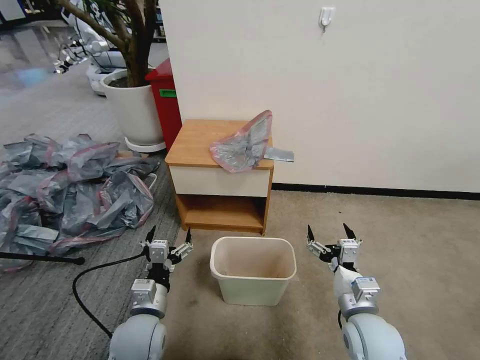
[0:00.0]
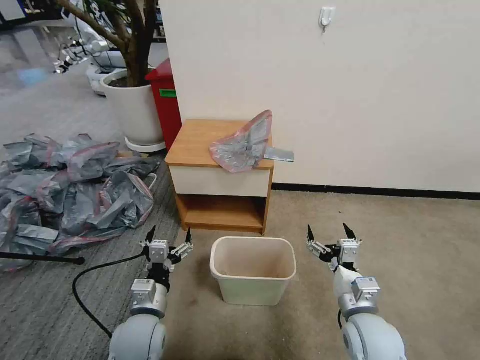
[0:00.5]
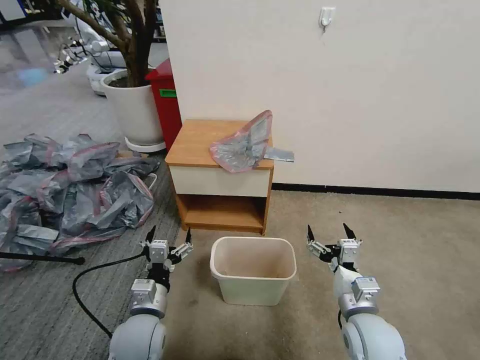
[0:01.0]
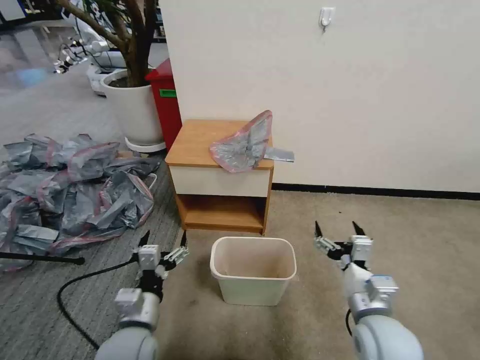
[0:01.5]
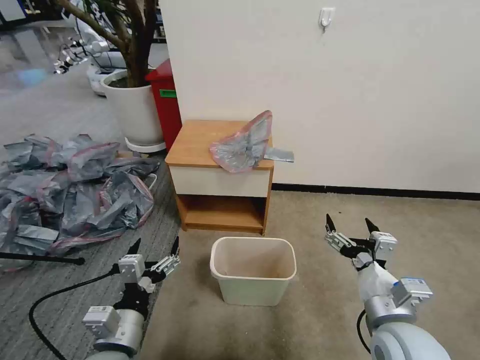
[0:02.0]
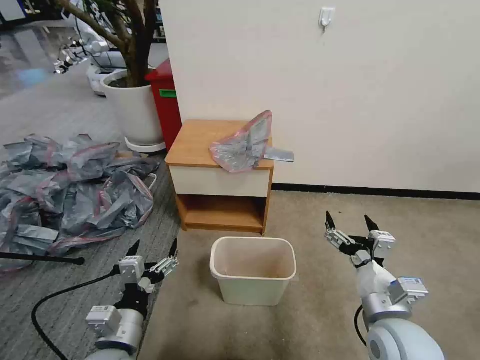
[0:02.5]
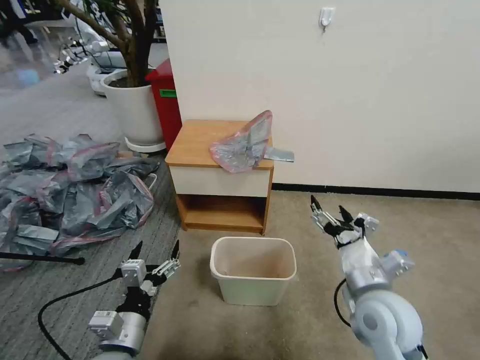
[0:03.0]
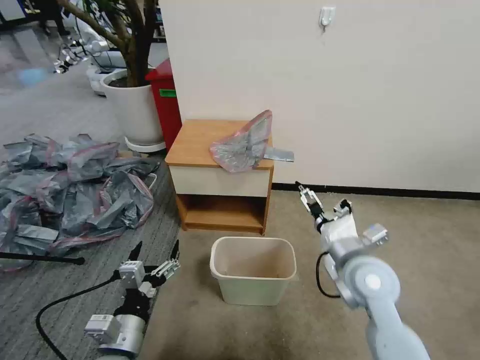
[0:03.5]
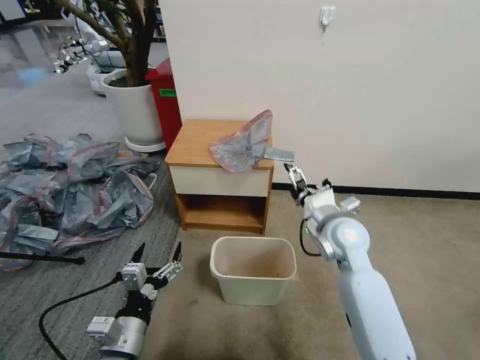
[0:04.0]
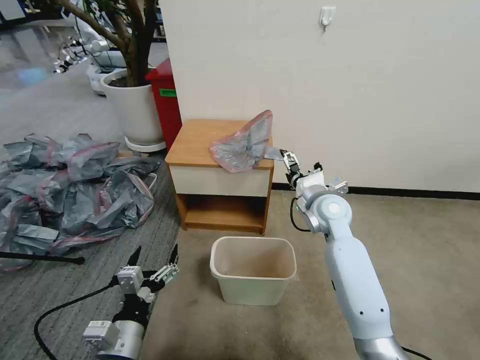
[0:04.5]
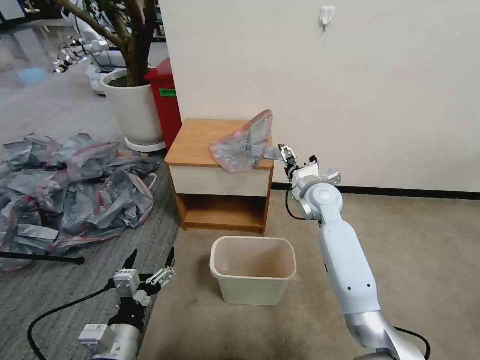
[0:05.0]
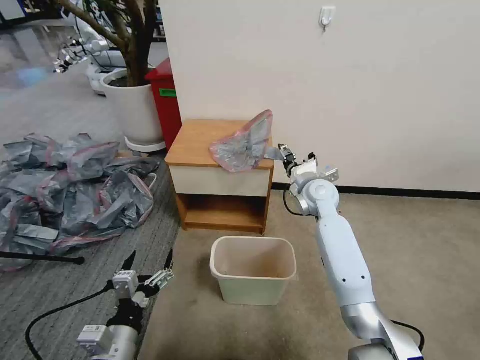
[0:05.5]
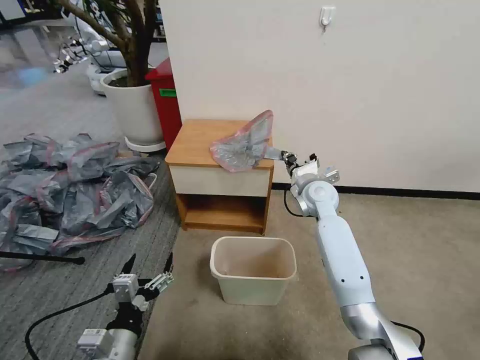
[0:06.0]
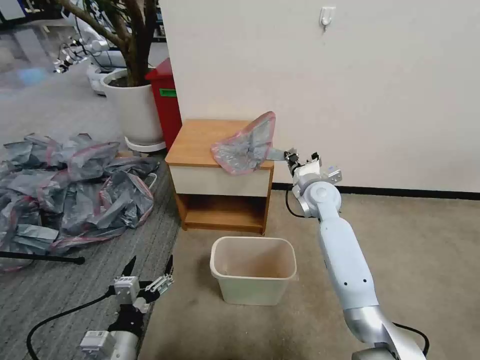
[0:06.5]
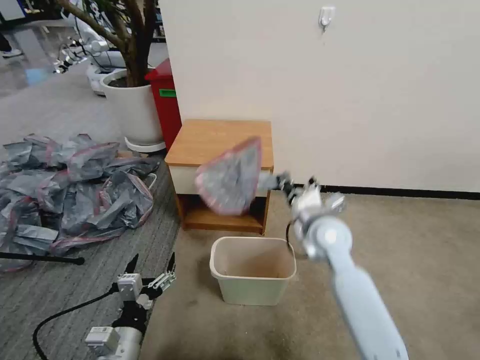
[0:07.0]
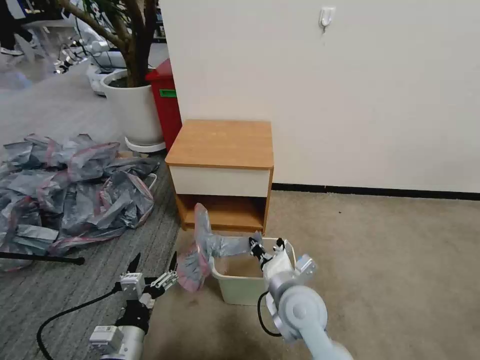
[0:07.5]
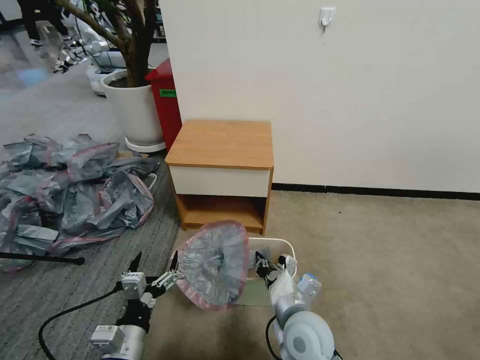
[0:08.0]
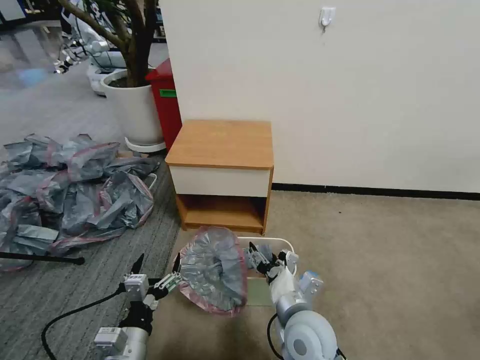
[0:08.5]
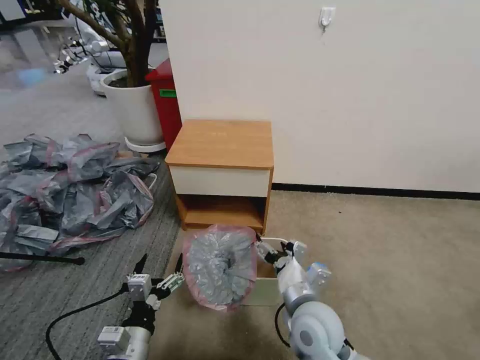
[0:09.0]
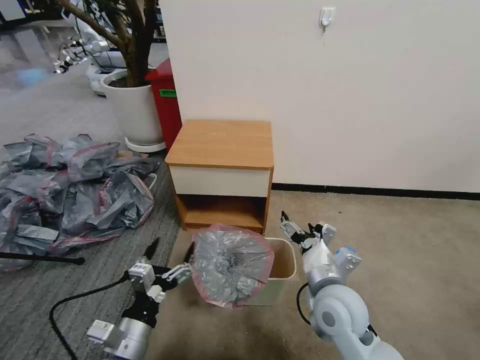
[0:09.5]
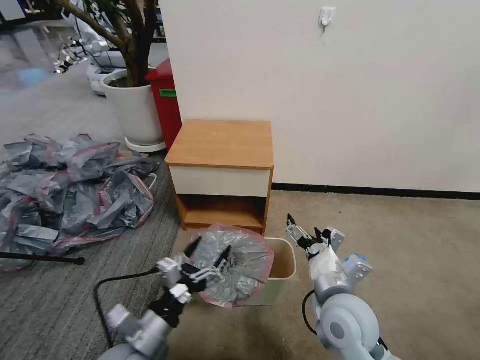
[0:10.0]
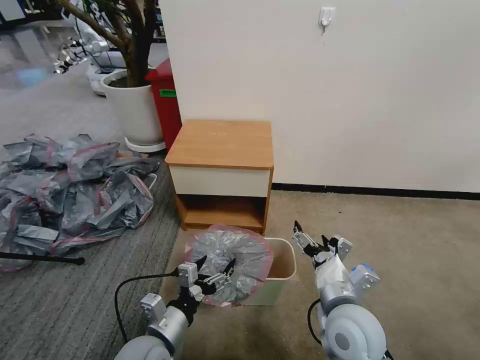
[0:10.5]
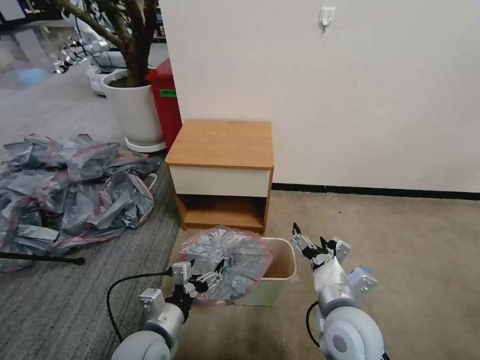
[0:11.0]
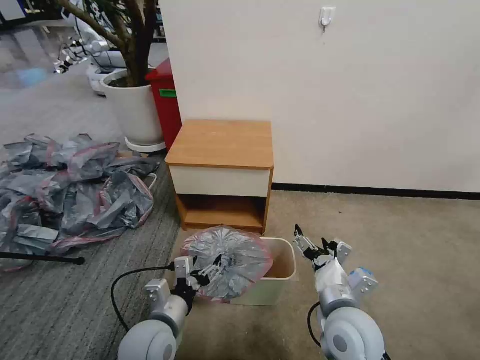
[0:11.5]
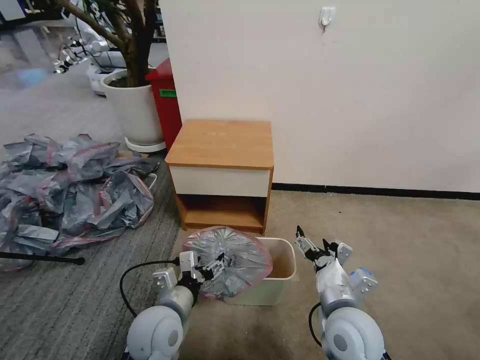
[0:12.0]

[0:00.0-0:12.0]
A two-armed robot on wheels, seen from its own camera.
Task of the whole recording: Pick up the garbage bag from the table and place it over the trash can.
2.0 to 4.0 s: The right gripper is displaced forward by approximately 20 cm.
4.0 to 6.0 s: The right gripper goes about 15 cm forward, and closes up.
6.0 to 8.0 s: The right gripper moves backward, roughly 30 cm.
8.0 to 10.0 s: The right gripper is displaced to the right and upward by some 10 cm, and opens up.
10.0 to 12.0 s: The left gripper is displaced forward by approximately 5 cm.

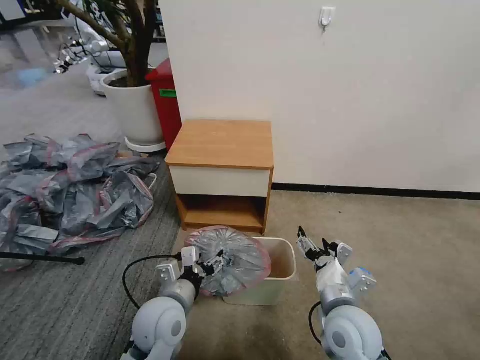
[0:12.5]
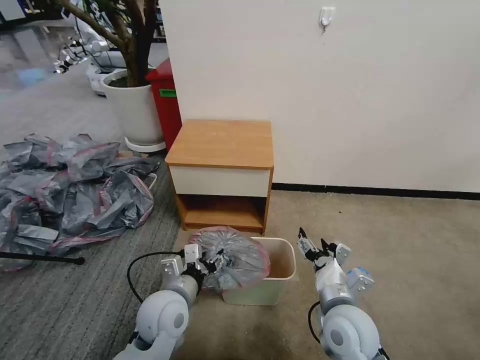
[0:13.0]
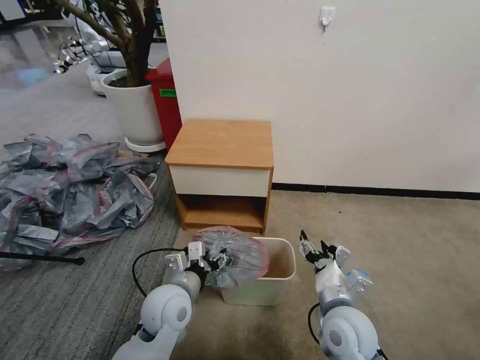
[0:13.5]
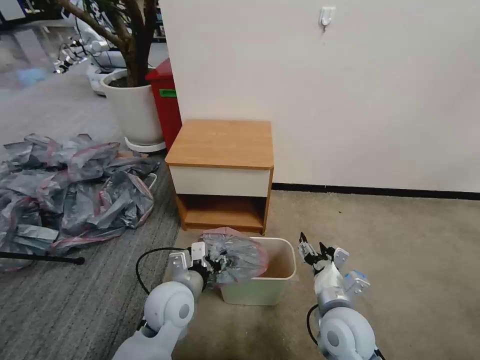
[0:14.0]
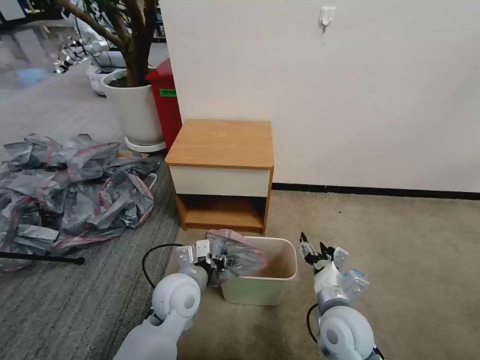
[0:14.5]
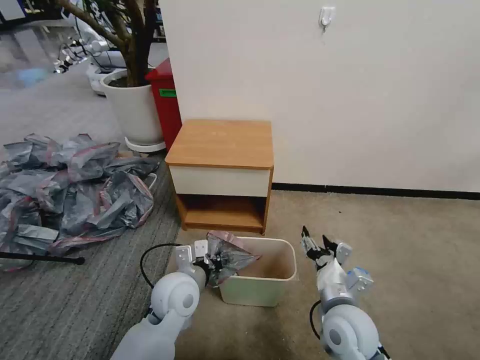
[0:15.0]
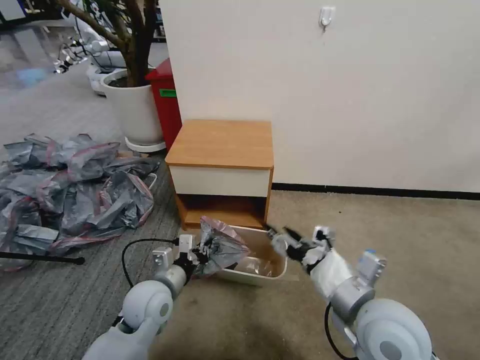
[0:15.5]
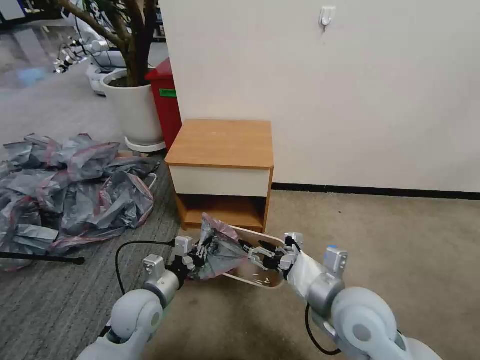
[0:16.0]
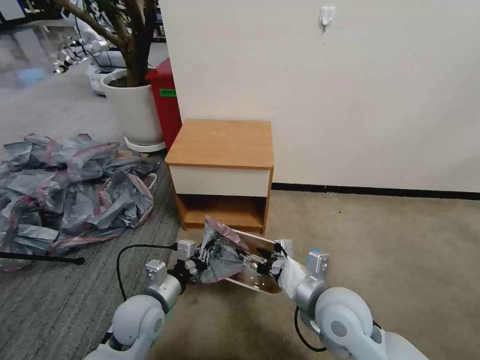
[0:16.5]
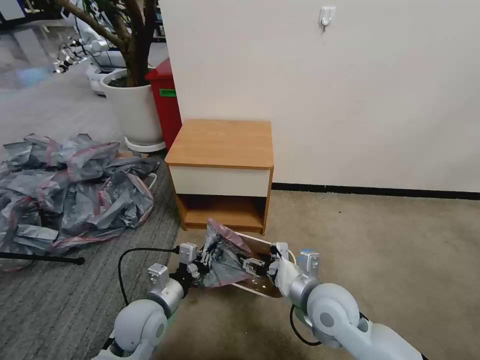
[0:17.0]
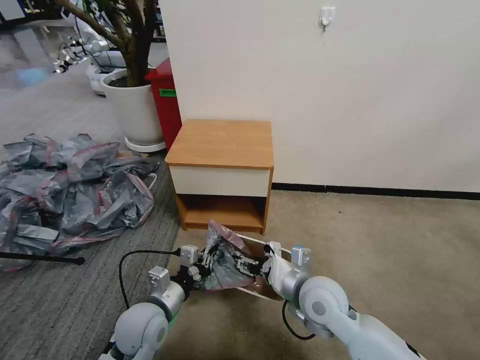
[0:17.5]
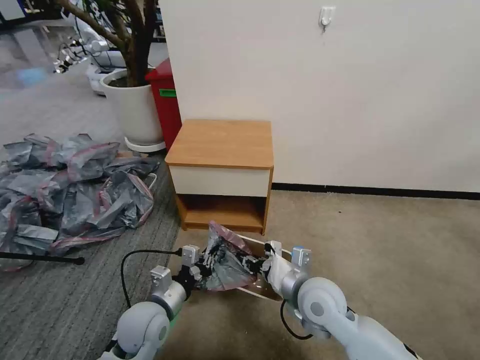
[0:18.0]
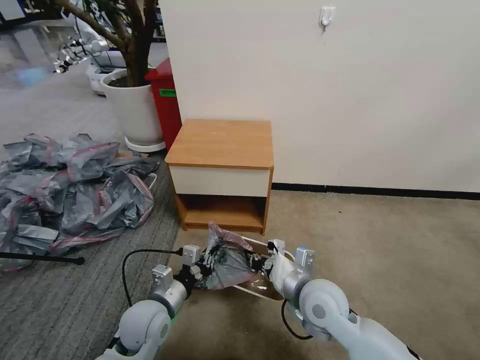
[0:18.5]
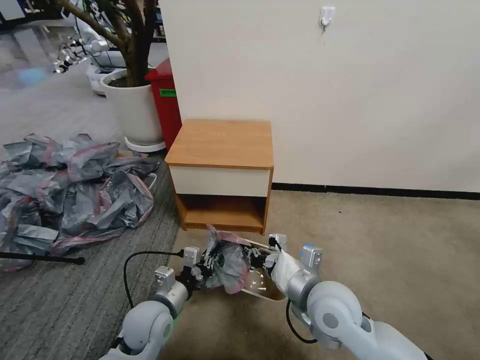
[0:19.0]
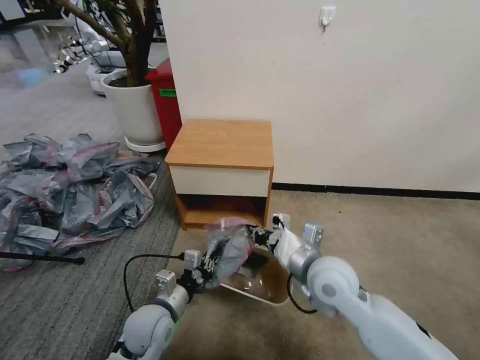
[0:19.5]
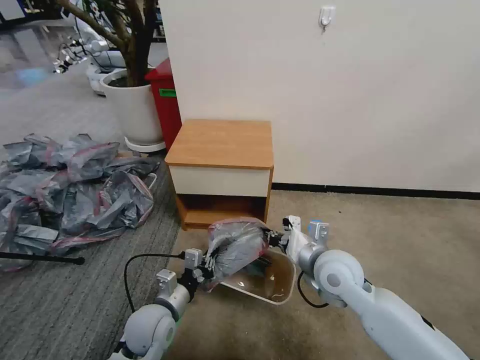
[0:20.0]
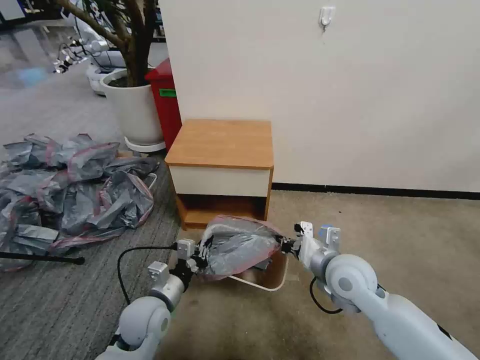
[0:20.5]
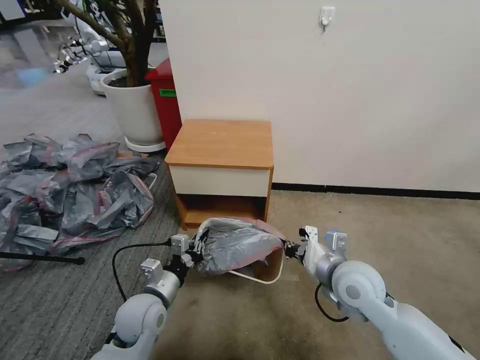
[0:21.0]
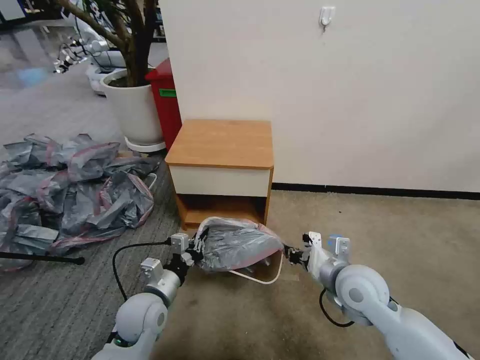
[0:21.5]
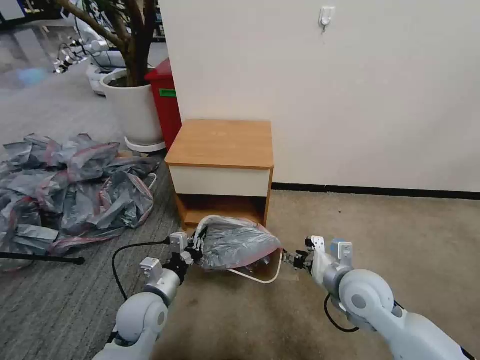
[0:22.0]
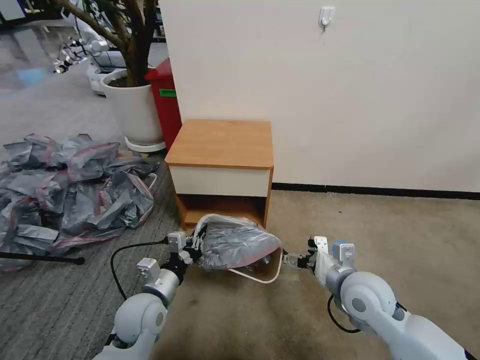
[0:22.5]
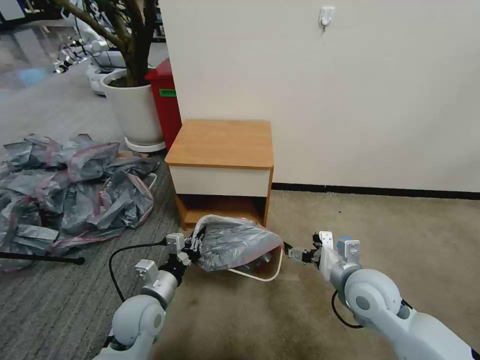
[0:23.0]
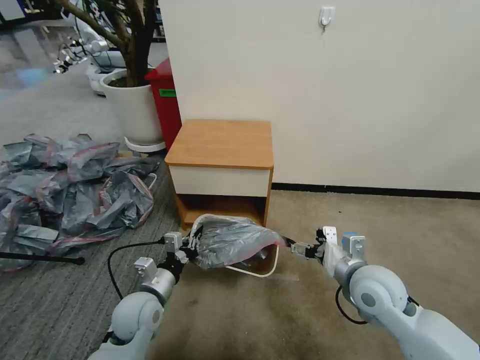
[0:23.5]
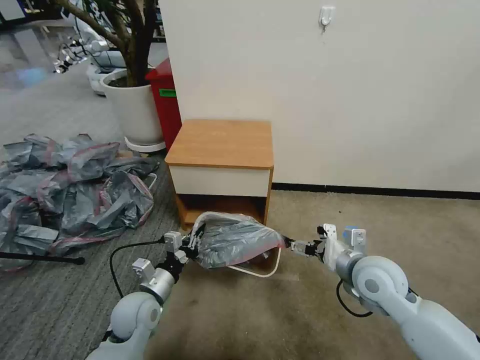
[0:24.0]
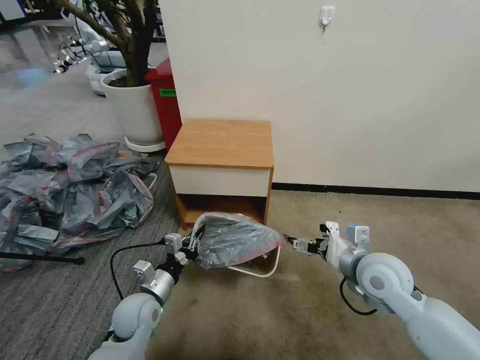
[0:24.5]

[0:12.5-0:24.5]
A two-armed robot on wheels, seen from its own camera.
Task of the whole recording: Pick up the garbage bag from the table and place it over the trash can.
12.5 to 14.5 s: The left gripper moves approximately 5 cm, and closes its fingers.
14.5 to 16.5 s: The right gripper is displaced upward by some 5 cm, while the left gripper shifts some 10 cm to the left.
16.5 to 18.5 s: The right gripper changes place by about 5 cm, and closes up.
18.5 to 20.5 s: The right gripper goes approximately 5 cm to the right.
20.5 to 22.5 s: The right gripper opens.
22.5 to 24.5 s: The right gripper changes place by some 5 cm.

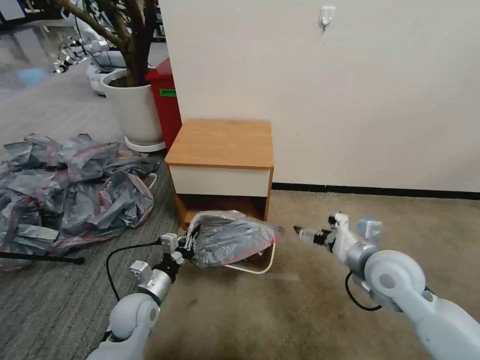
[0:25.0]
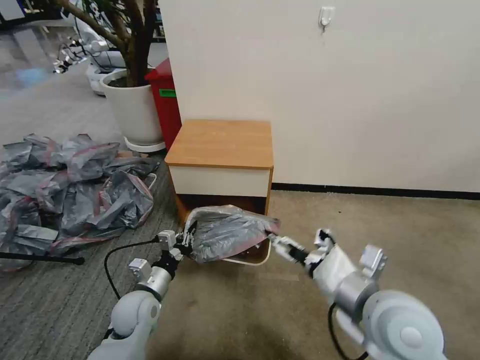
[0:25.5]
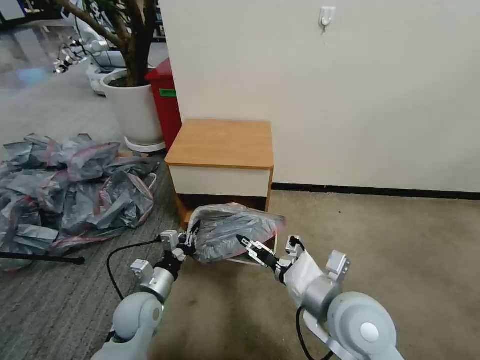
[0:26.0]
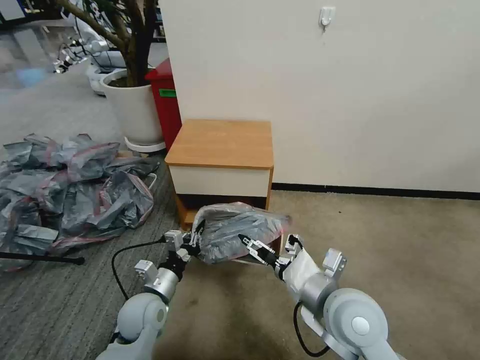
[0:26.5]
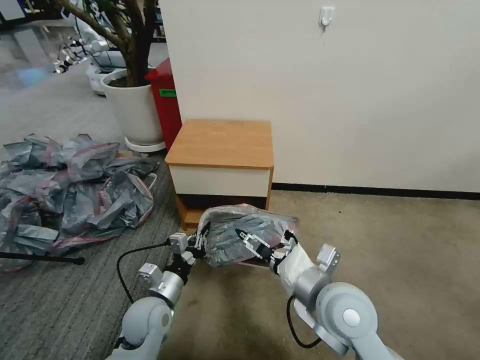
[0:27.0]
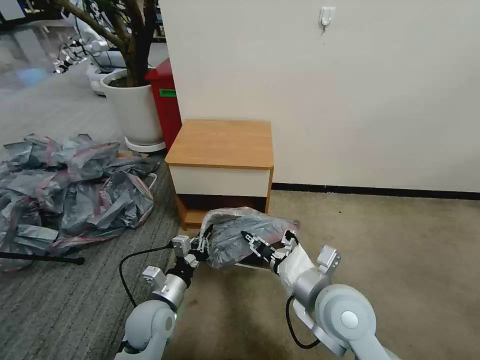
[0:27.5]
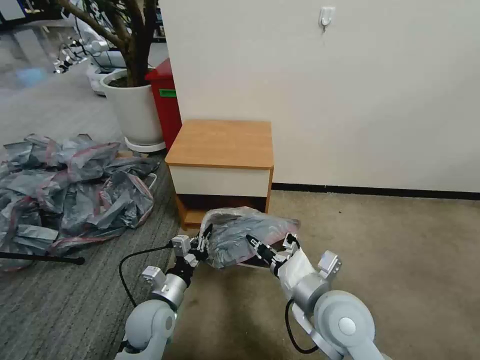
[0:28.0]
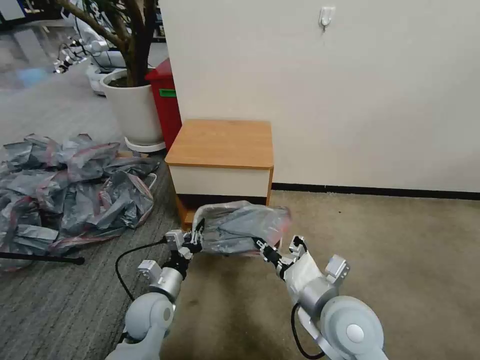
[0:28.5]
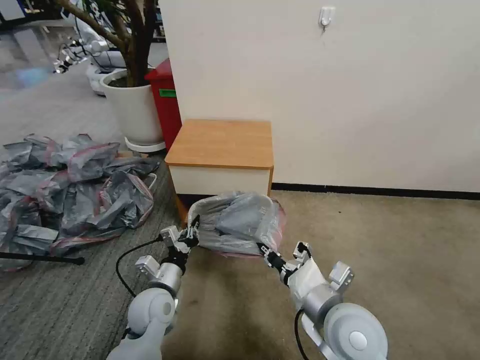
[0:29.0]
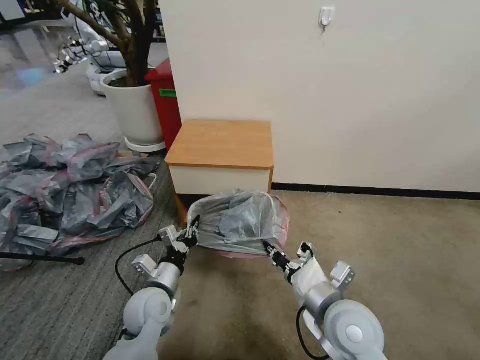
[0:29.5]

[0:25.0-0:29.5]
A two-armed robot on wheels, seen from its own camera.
Task of the whole recording: Pick up the garbage bag from the table and place it over the trash can.
25.0 to 27.0 s: The right gripper shifts approximately 15 cm to the left and backward.
27.0 to 29.5 s: The right gripper closes.
